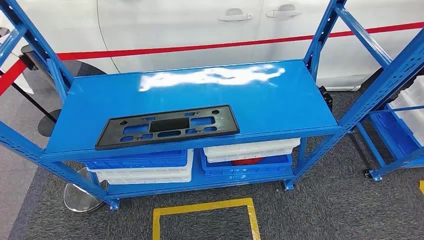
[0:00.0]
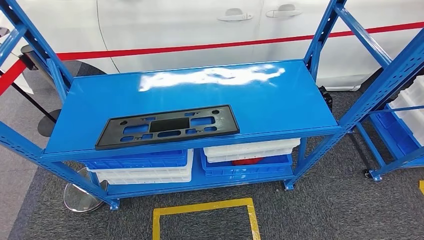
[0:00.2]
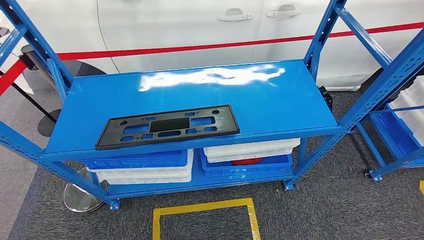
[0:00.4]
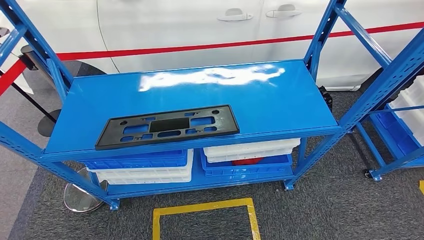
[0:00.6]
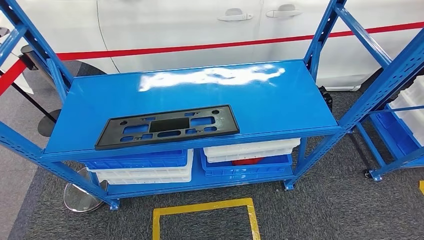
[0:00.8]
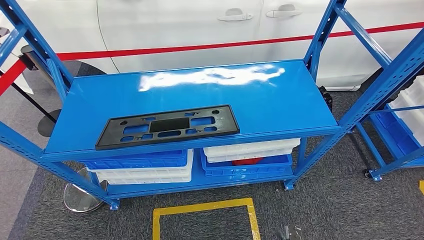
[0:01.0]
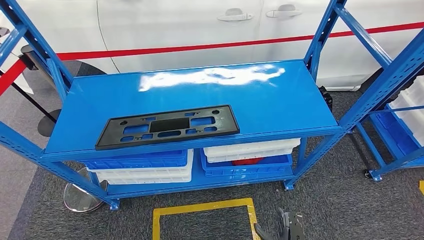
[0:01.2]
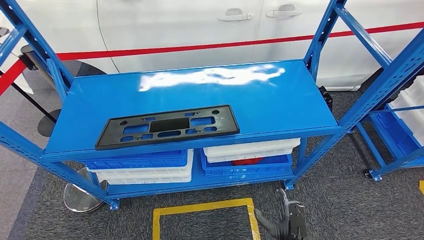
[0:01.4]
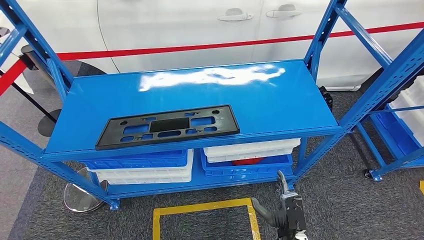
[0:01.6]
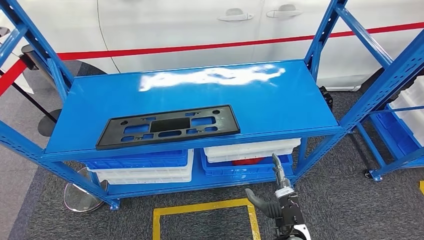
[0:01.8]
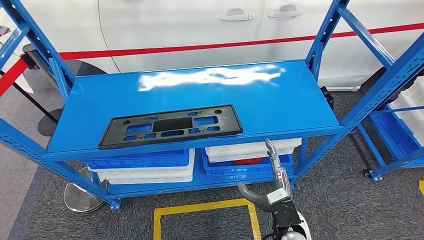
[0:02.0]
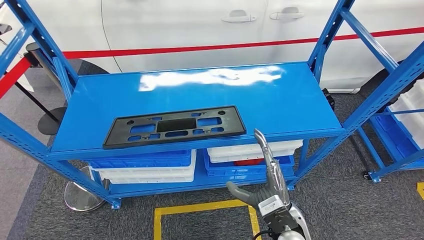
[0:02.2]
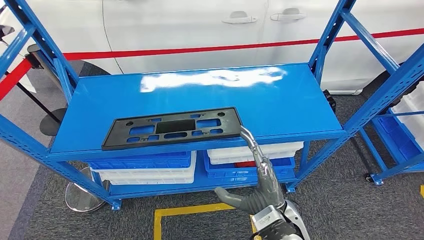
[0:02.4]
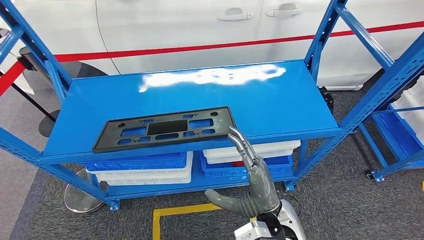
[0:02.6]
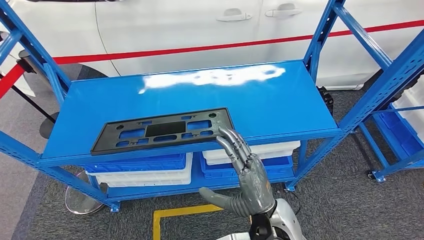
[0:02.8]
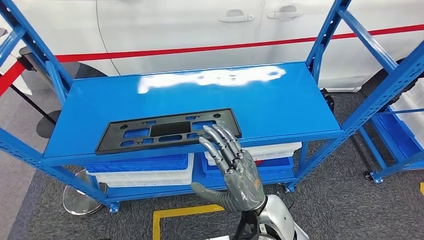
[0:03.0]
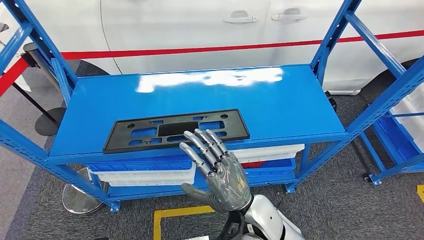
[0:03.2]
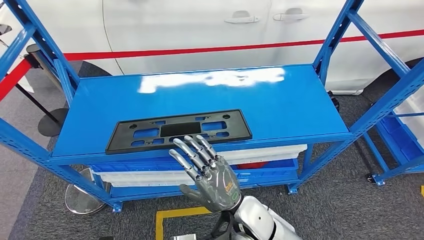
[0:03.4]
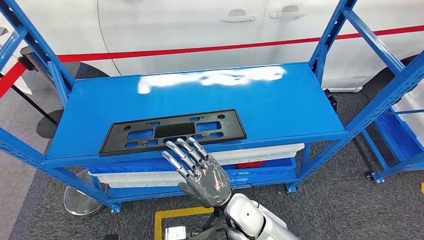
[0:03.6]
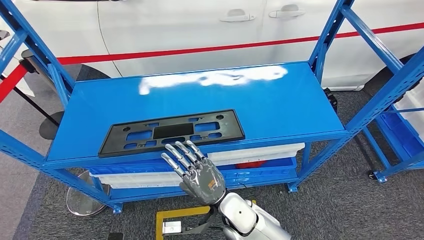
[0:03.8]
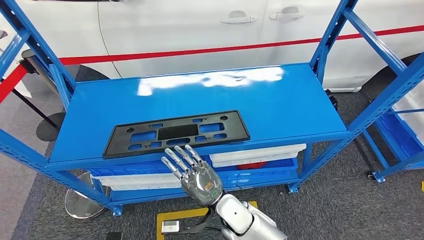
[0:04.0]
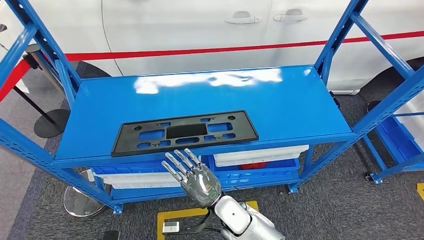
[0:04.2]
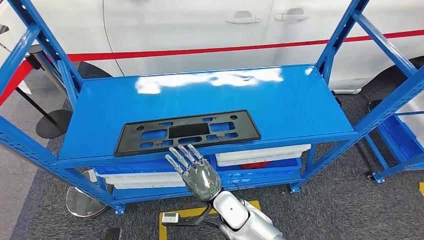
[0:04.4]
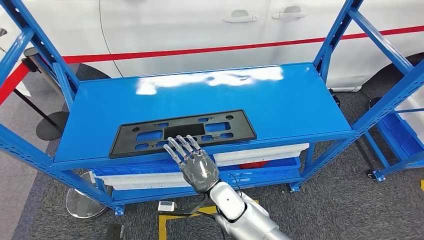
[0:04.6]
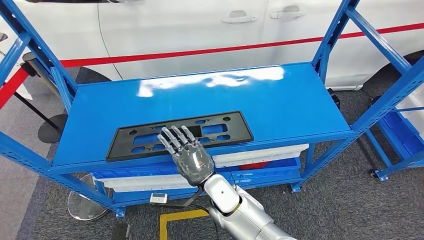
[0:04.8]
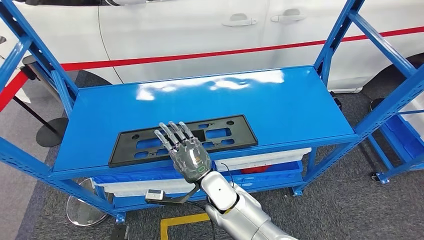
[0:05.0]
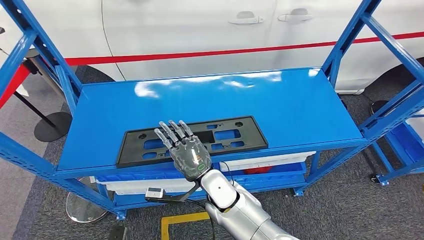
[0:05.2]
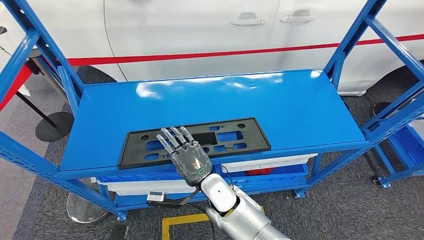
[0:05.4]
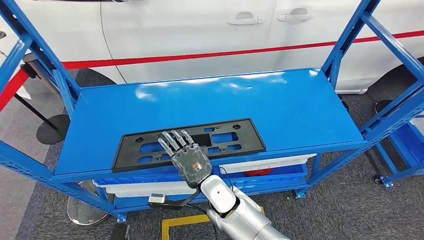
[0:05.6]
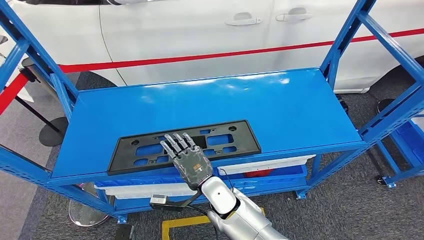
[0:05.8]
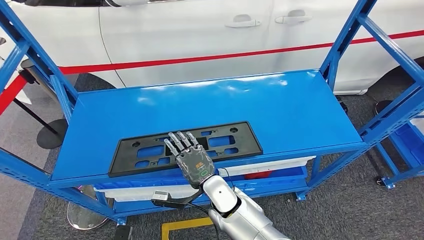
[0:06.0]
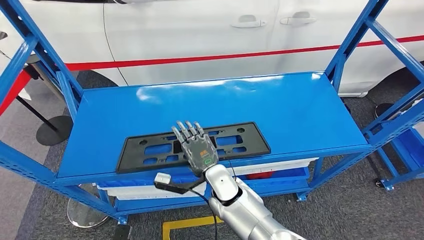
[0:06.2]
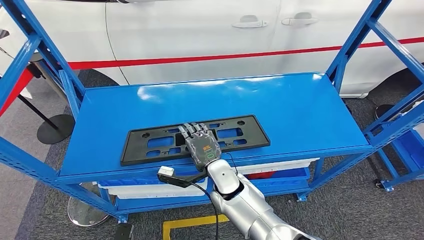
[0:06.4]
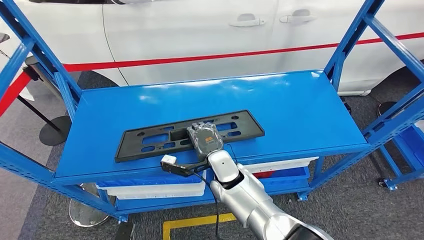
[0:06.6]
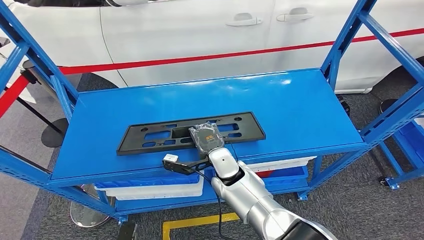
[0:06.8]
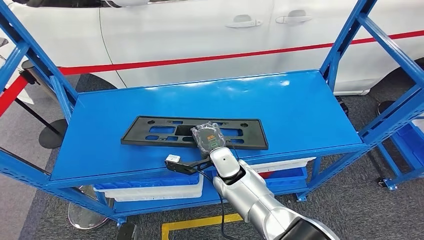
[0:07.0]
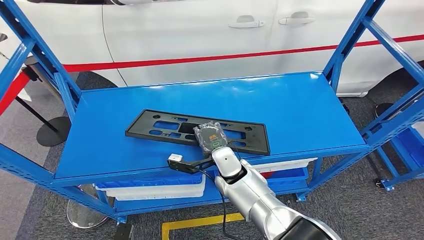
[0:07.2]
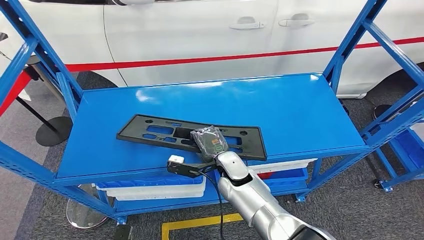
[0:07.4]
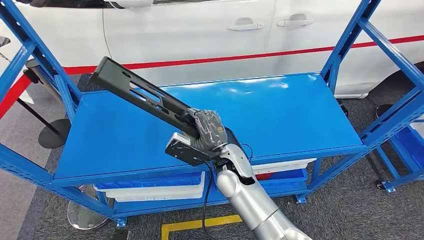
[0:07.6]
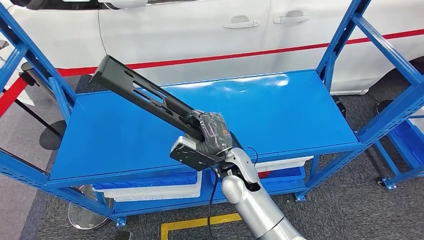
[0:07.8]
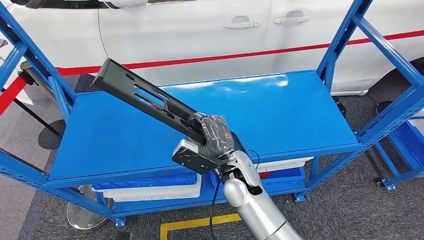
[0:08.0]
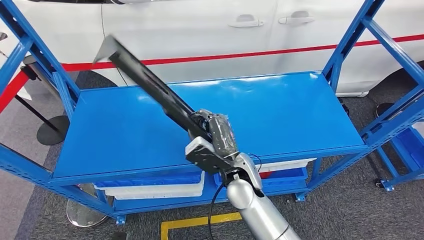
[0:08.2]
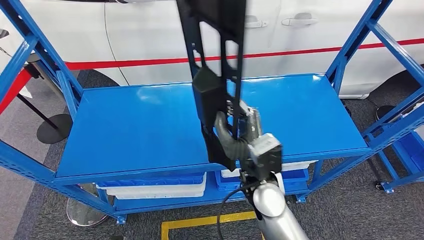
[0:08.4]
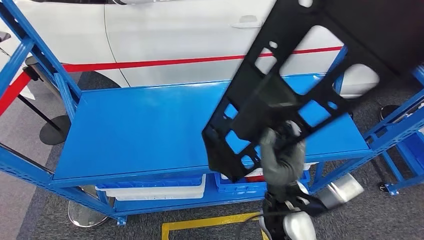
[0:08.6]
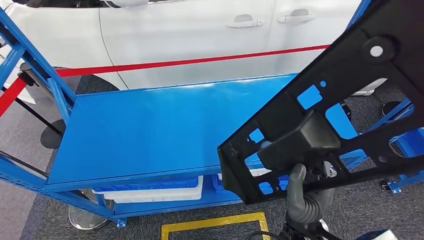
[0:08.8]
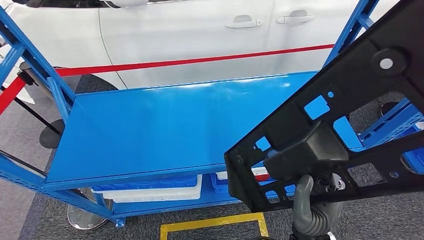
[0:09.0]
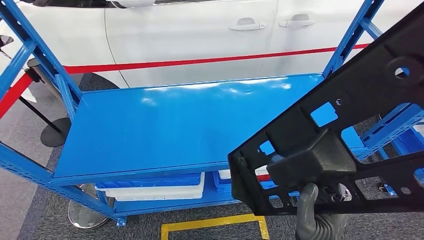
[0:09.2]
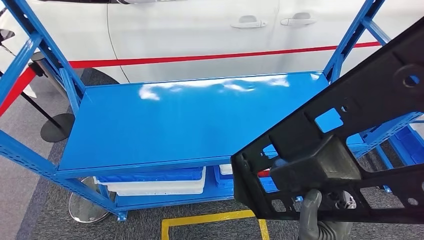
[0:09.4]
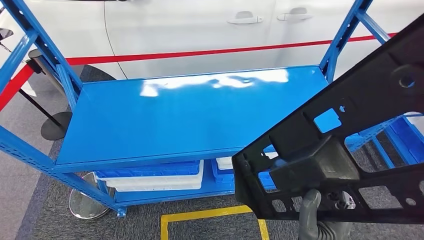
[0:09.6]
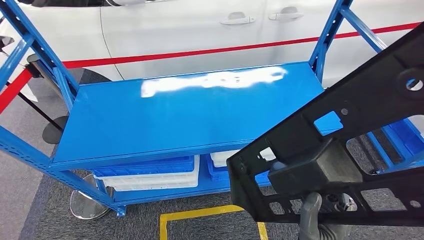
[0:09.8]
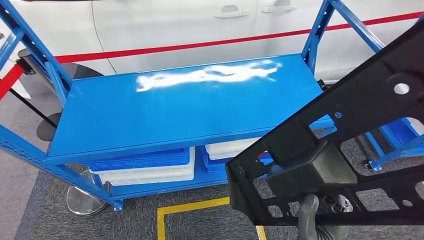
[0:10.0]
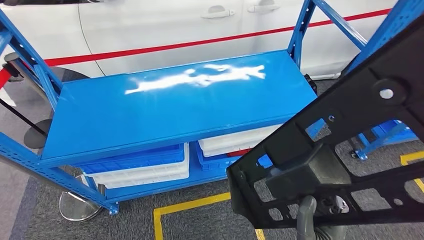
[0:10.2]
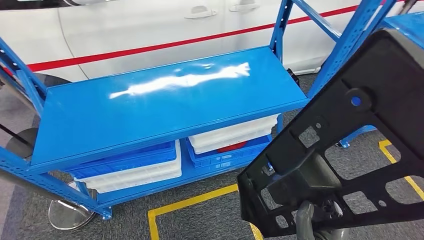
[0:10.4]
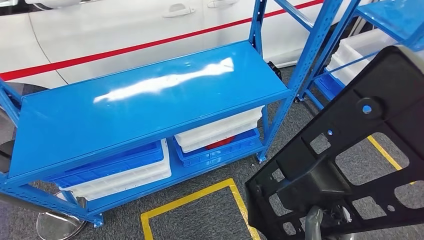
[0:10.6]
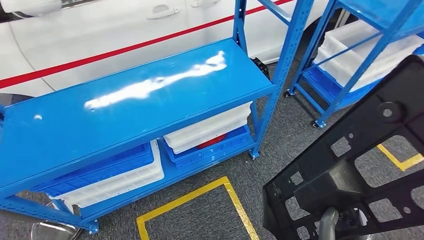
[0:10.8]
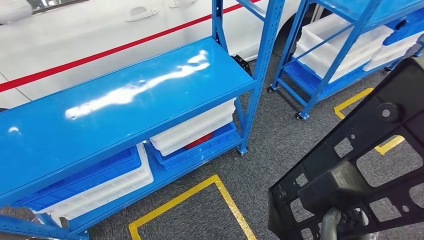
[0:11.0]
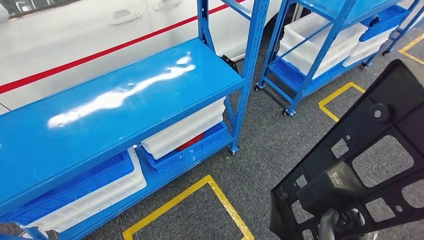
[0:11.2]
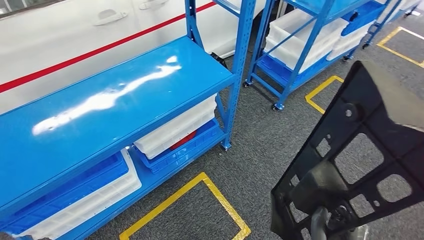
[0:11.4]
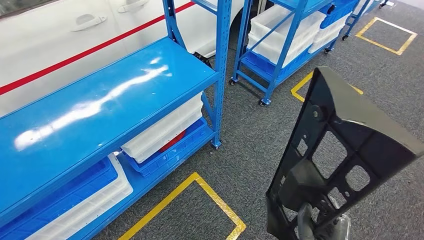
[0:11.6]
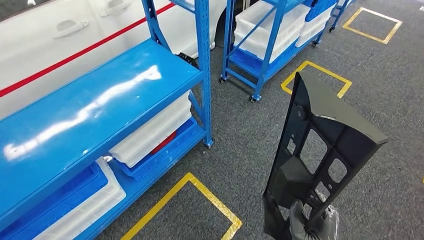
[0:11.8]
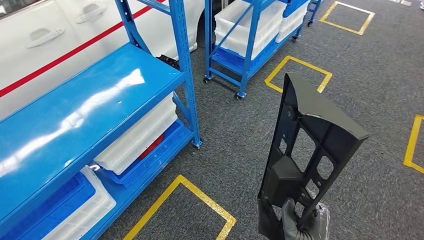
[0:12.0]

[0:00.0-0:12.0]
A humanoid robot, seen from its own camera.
Step, 0:00.0 to 0:10.4: Pick up the large material from the shelf.

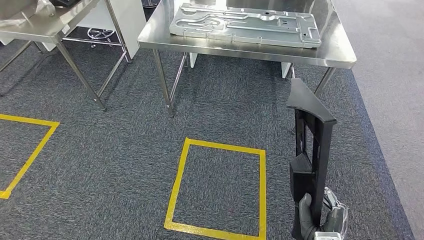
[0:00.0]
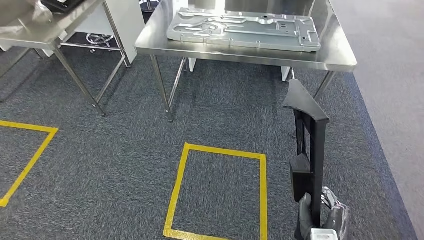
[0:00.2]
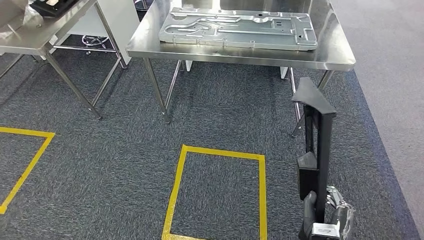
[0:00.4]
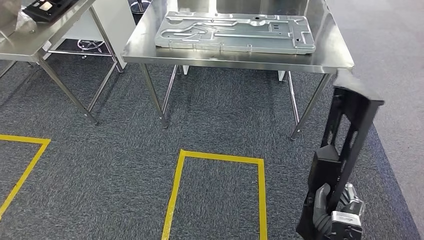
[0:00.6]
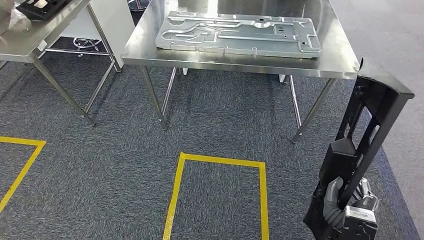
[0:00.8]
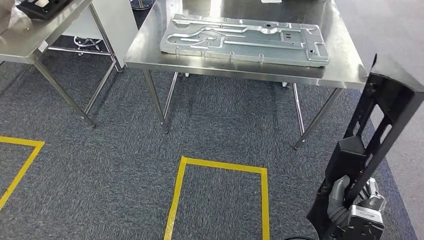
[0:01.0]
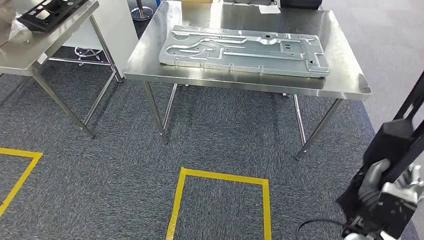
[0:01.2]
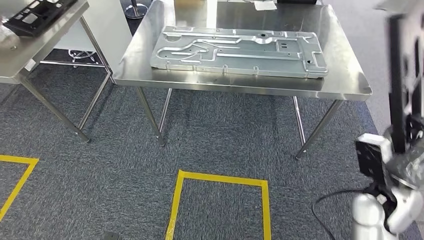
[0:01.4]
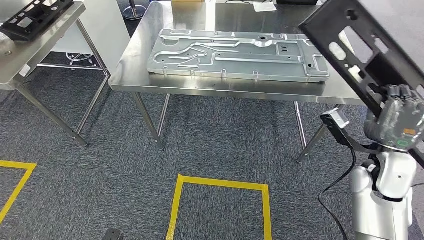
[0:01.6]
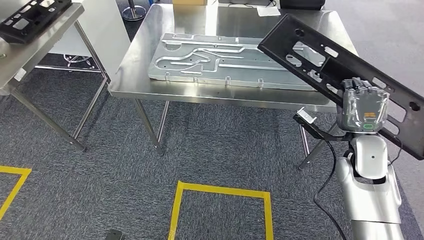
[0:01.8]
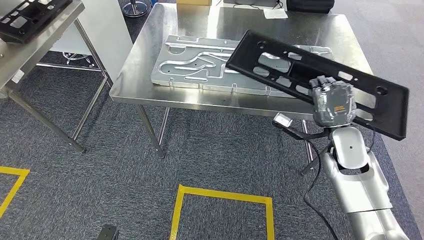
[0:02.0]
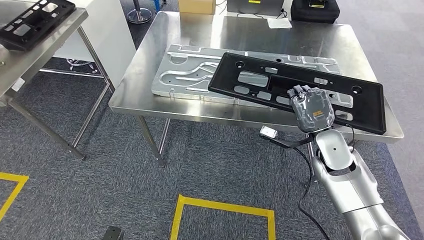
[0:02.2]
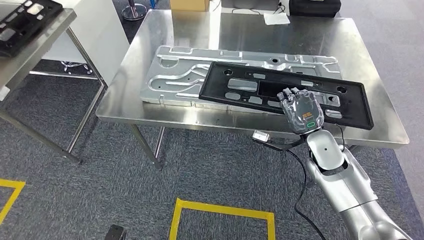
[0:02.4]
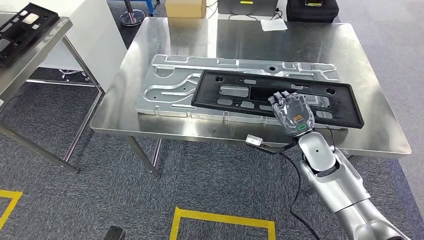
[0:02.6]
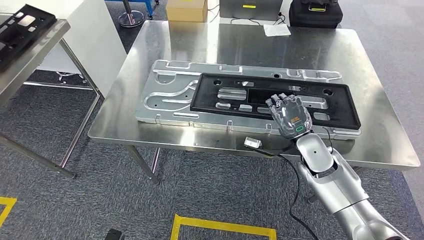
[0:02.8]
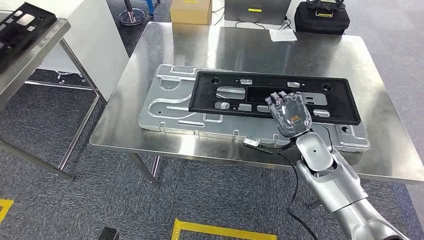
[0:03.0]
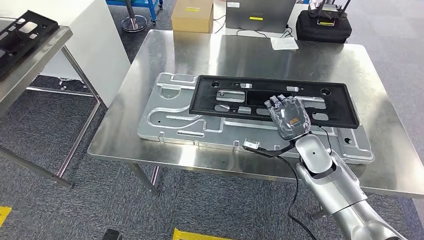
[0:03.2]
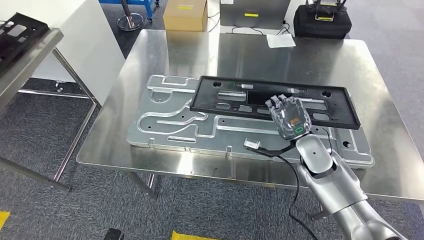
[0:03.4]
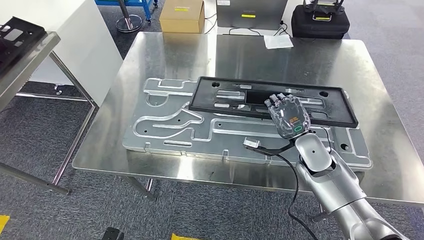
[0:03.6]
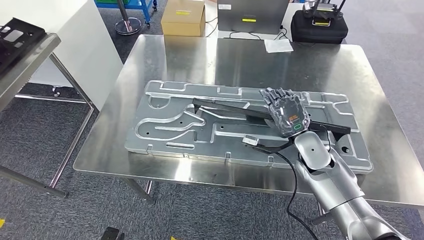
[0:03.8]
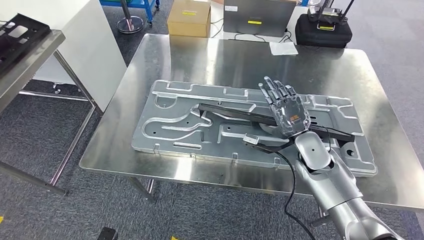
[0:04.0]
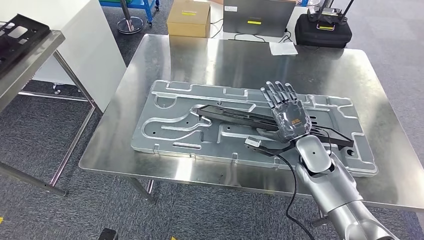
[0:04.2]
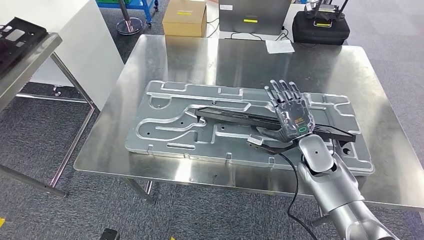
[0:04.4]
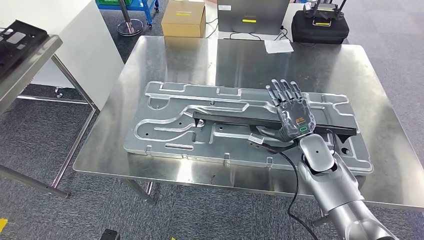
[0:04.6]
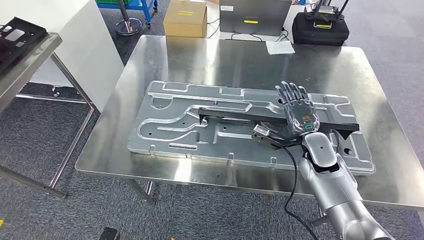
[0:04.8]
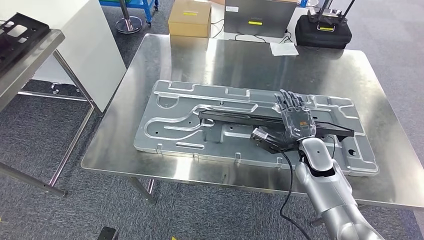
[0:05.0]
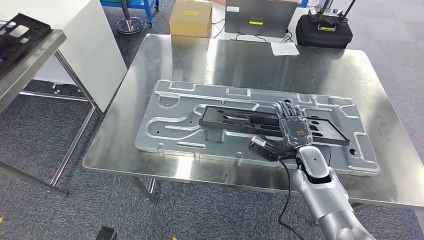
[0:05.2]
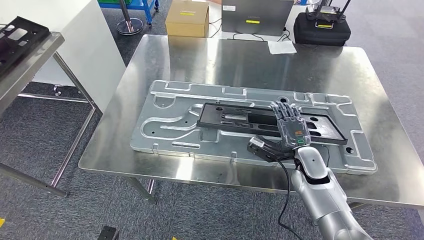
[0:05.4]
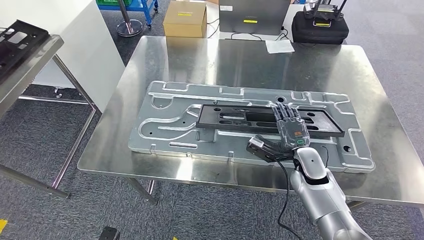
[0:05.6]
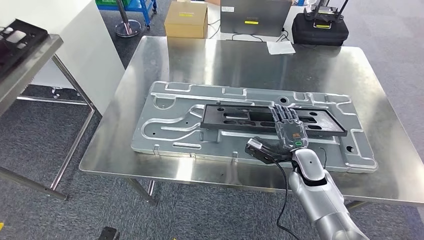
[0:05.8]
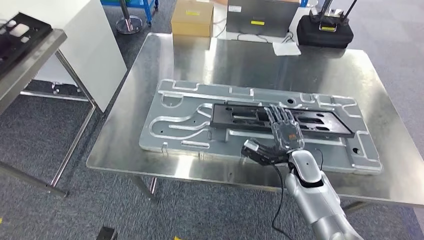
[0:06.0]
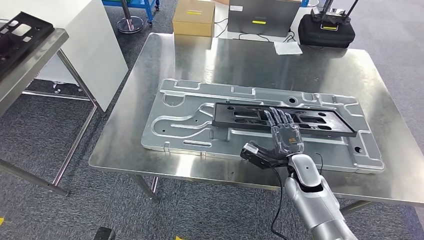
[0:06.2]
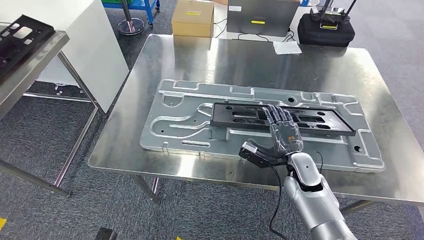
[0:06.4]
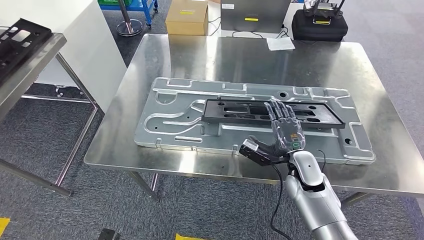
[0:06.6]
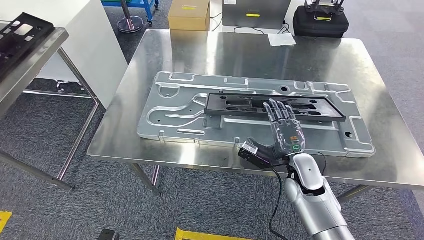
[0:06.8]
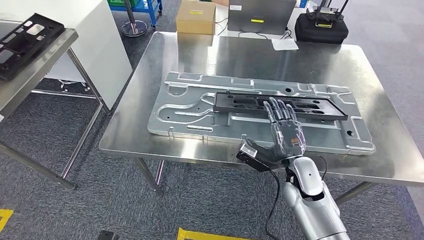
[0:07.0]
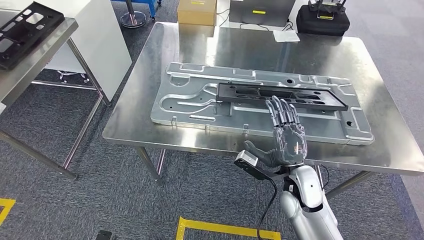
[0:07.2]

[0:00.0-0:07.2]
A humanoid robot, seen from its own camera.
Step, 0:00.0 to 0:04.0: Move the large material to the workbench.
